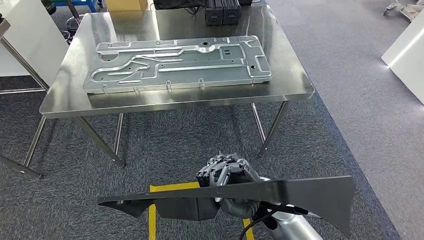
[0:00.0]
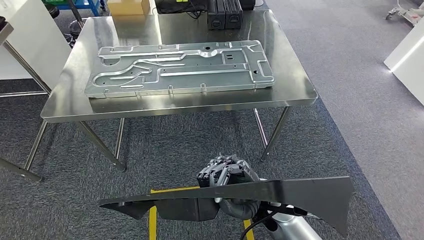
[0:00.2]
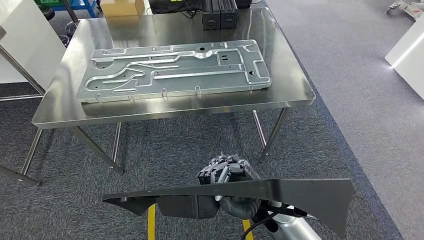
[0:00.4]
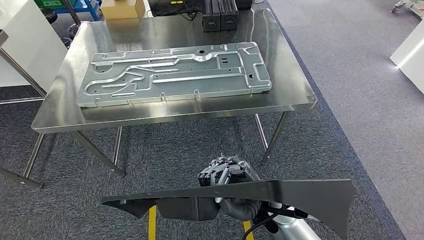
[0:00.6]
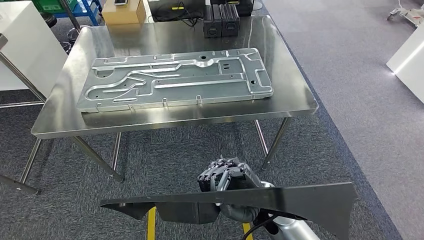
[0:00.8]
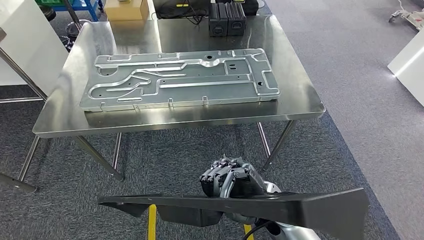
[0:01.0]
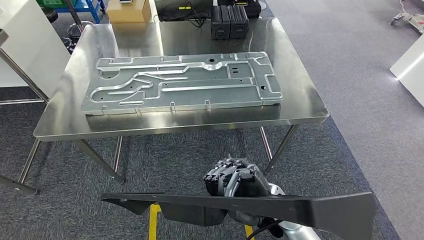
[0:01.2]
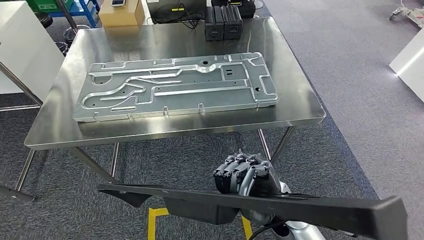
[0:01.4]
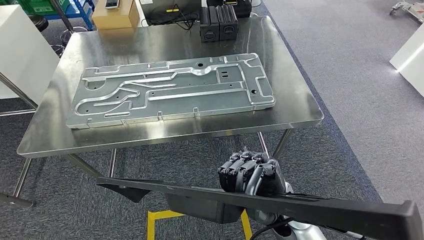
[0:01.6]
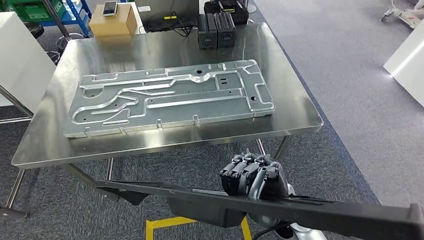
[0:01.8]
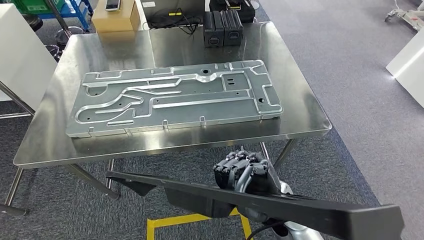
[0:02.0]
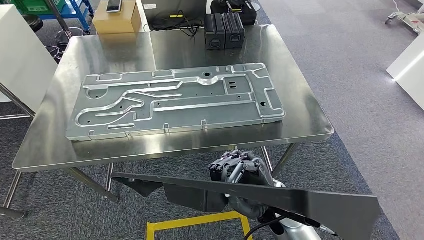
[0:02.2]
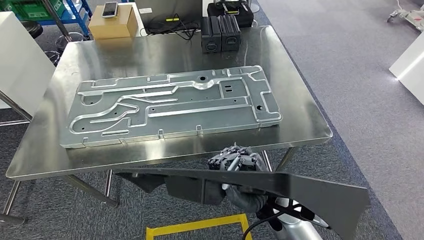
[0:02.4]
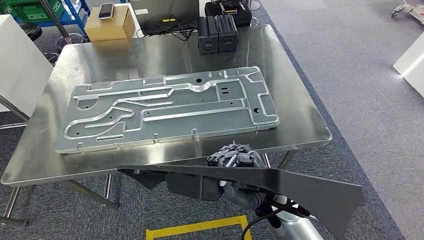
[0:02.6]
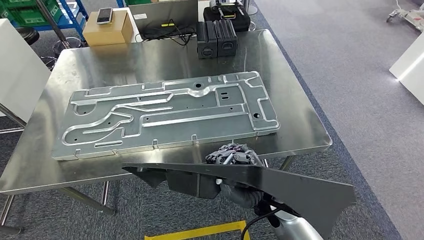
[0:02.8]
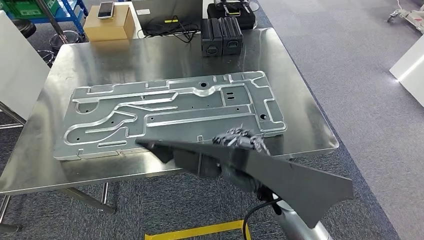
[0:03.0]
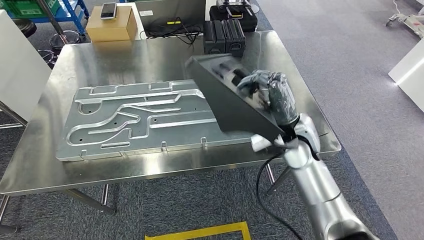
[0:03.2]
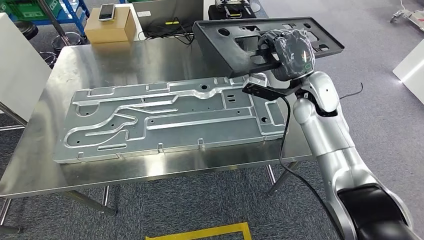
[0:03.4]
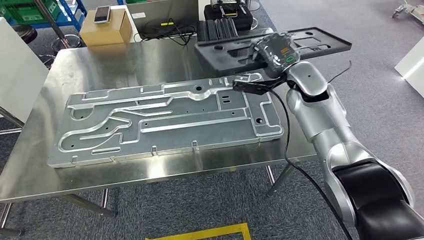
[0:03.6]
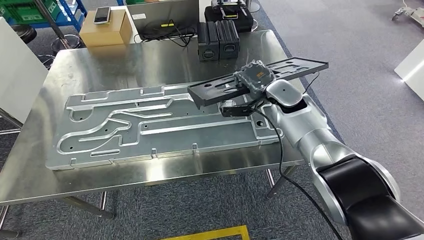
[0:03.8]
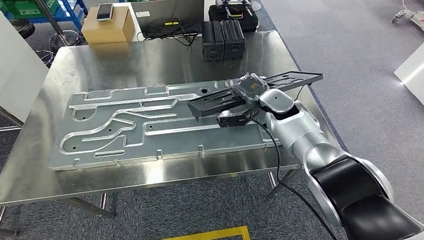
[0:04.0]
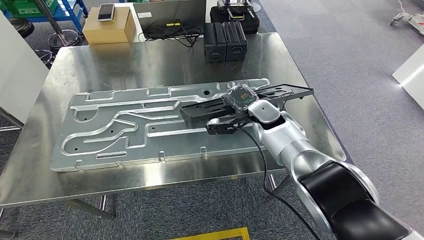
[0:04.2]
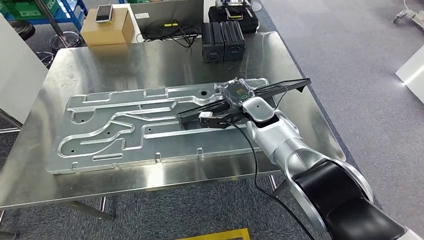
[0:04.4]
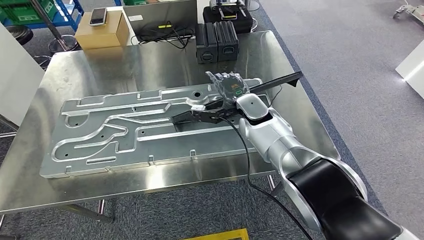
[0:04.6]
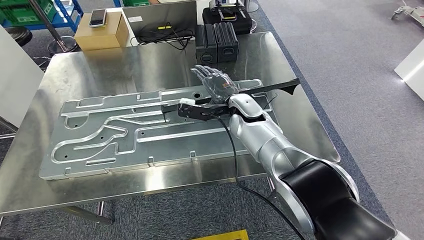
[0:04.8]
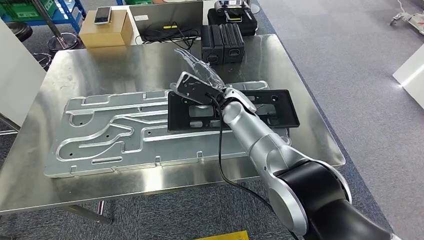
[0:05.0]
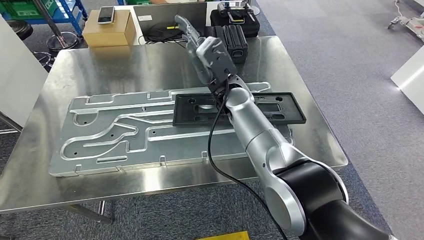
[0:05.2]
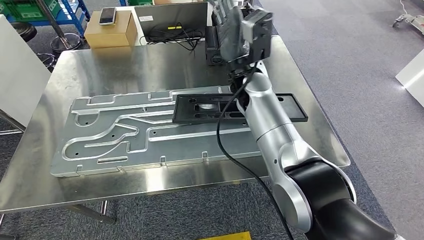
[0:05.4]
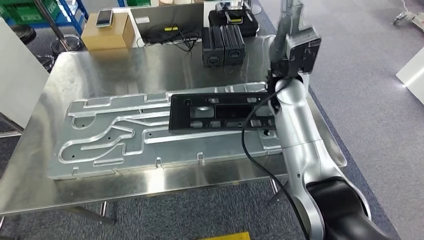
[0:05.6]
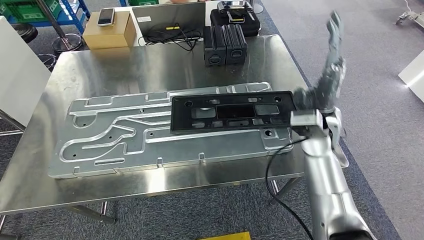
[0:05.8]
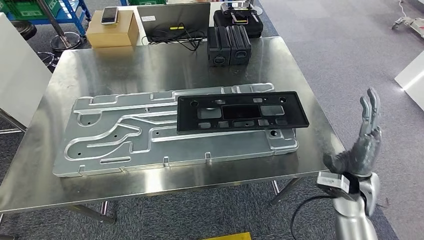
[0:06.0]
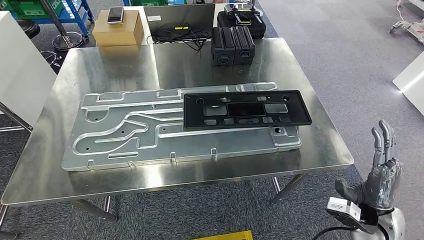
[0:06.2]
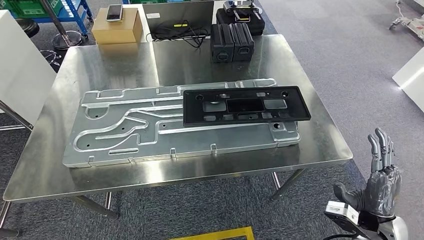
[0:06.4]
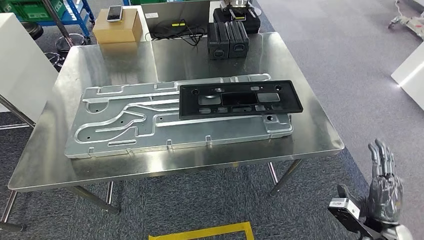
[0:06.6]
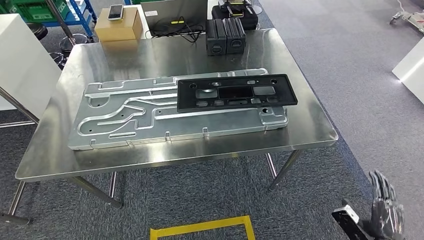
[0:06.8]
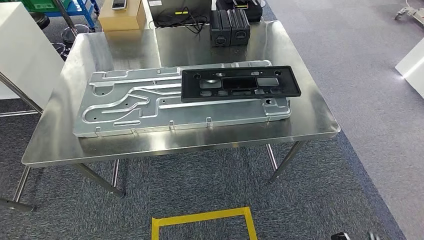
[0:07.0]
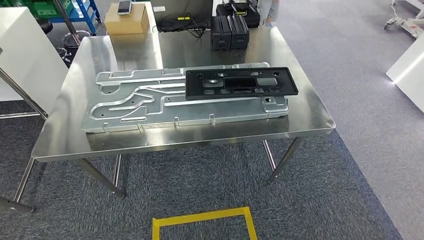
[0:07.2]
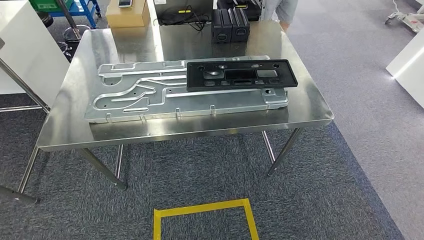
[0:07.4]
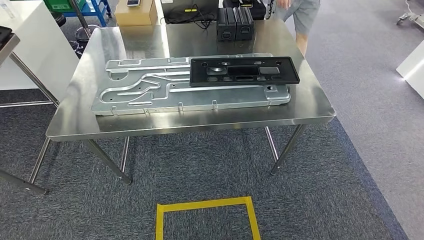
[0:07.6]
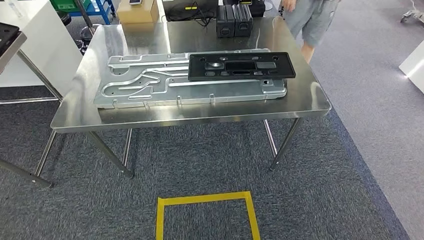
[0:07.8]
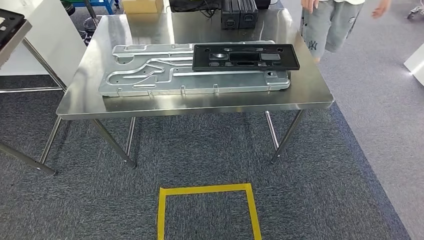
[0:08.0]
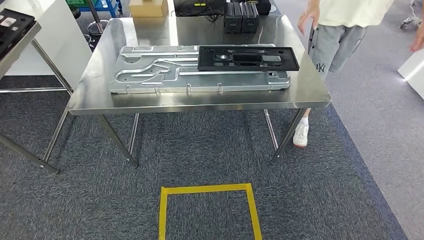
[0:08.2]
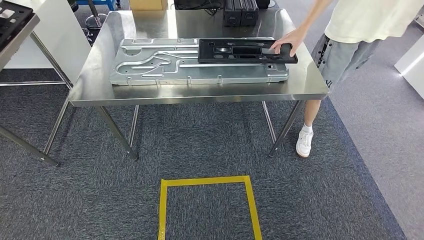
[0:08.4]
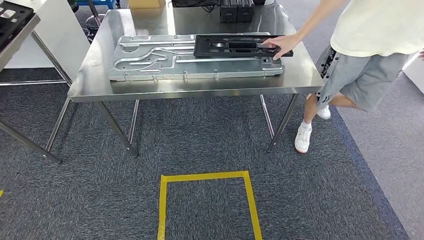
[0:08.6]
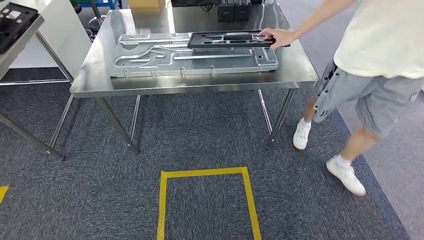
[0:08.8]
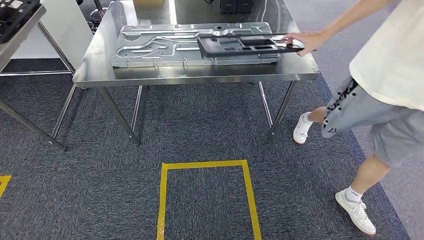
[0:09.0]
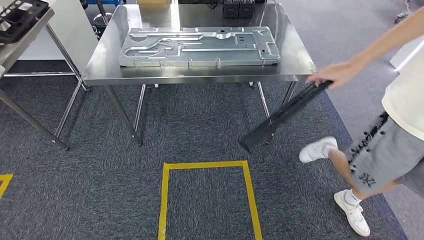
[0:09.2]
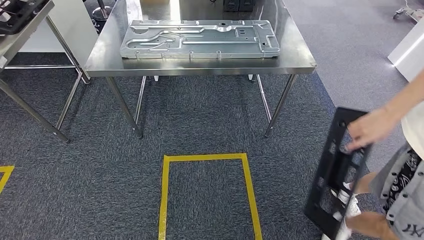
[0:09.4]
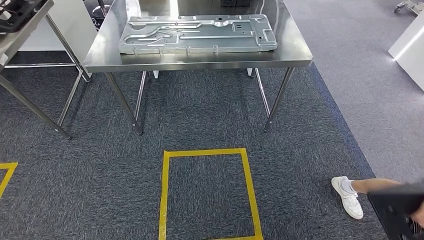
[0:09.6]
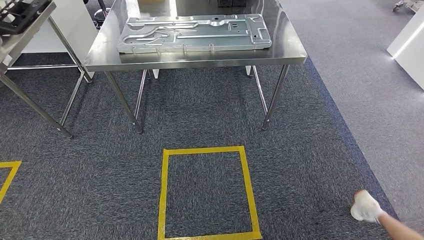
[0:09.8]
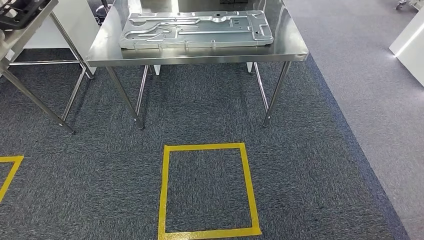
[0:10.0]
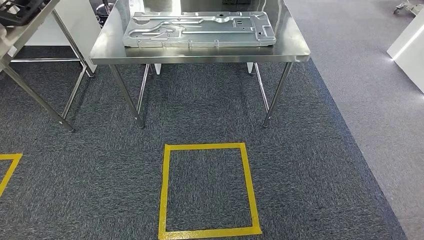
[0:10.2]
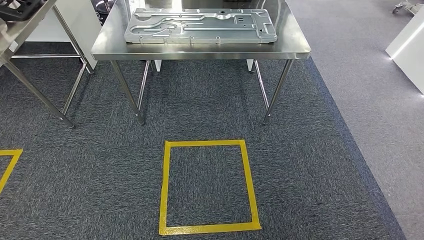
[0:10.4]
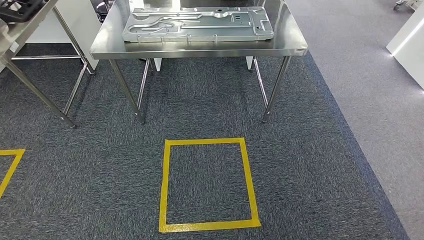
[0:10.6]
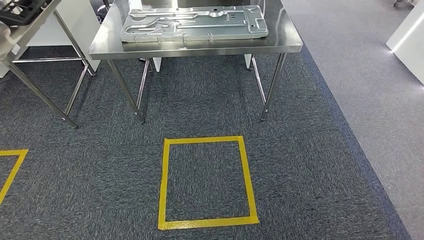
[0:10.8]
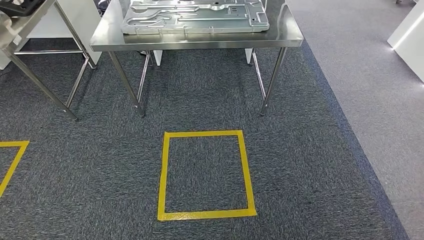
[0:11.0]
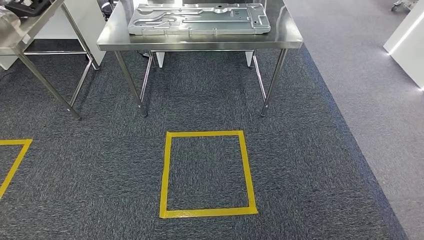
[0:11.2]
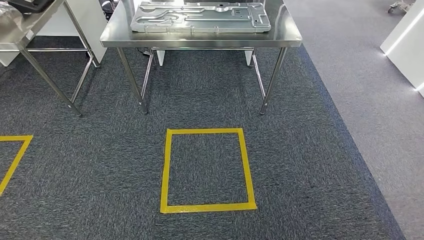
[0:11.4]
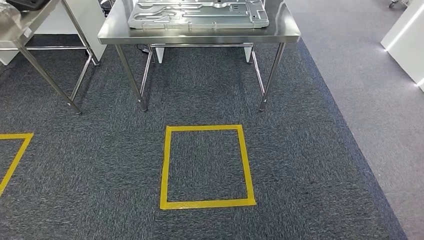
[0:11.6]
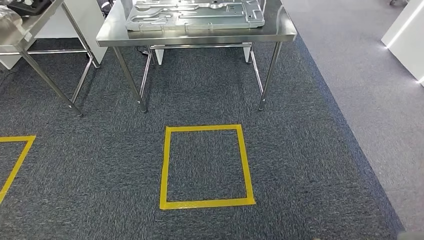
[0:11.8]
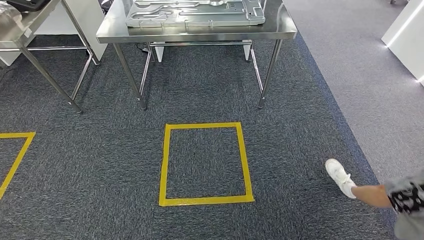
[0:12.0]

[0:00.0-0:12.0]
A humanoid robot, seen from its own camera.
Step, 0:03.6 to 0:07.0: Insert the large material into the corresponding slot on the workbench.

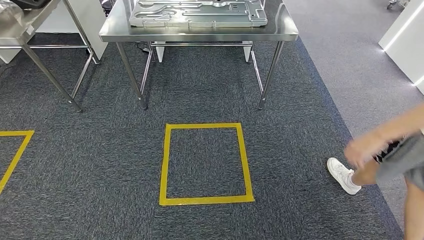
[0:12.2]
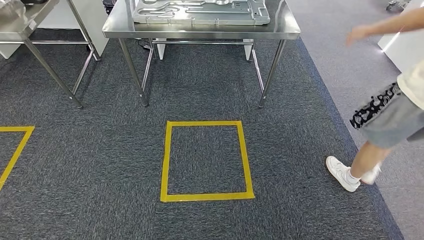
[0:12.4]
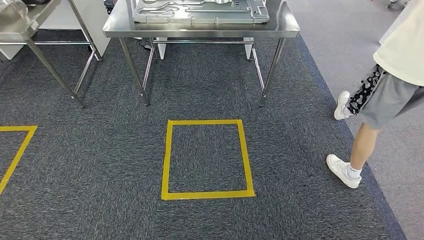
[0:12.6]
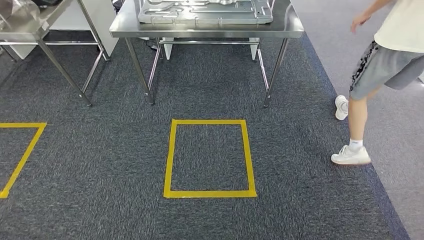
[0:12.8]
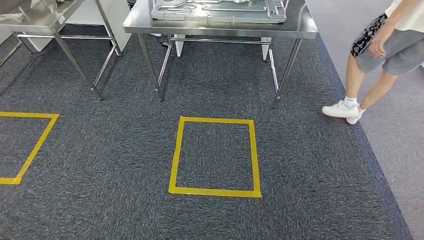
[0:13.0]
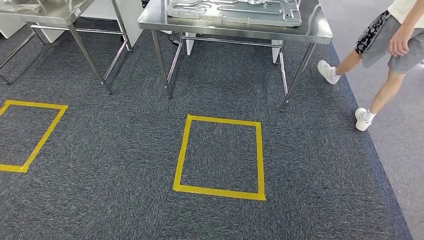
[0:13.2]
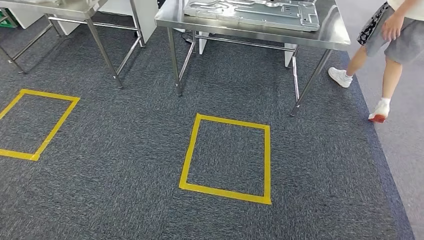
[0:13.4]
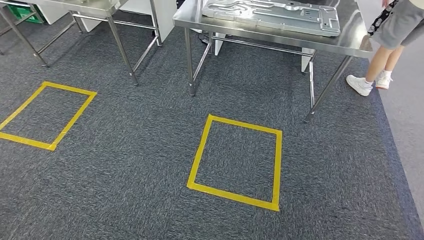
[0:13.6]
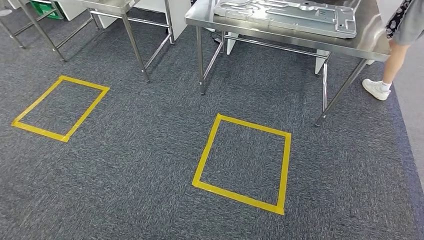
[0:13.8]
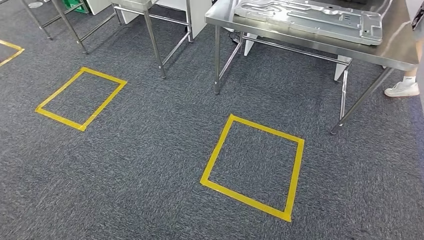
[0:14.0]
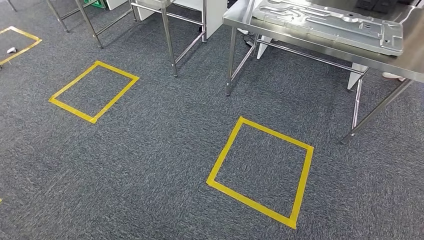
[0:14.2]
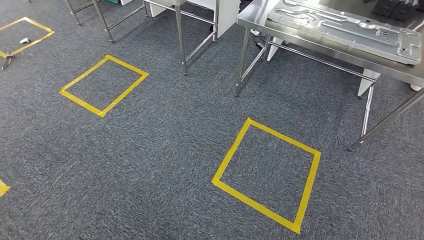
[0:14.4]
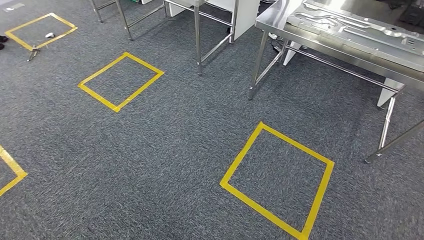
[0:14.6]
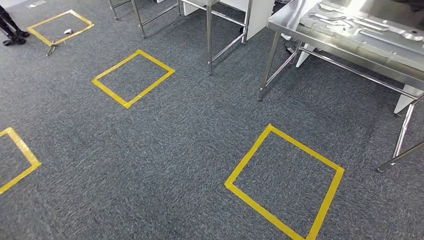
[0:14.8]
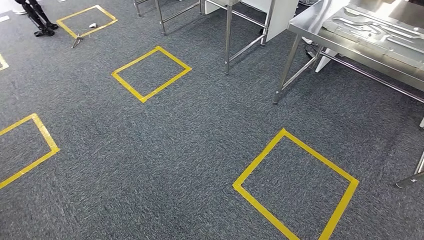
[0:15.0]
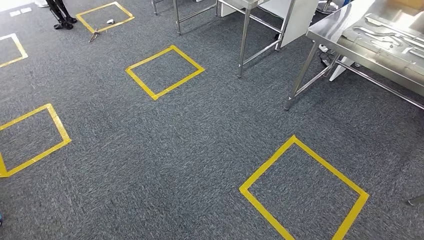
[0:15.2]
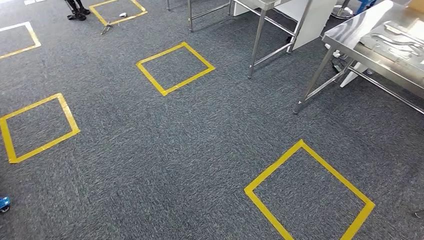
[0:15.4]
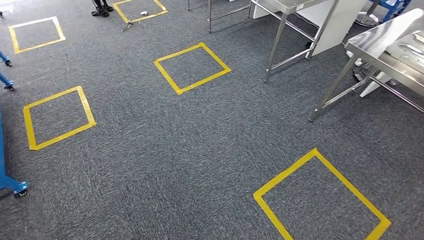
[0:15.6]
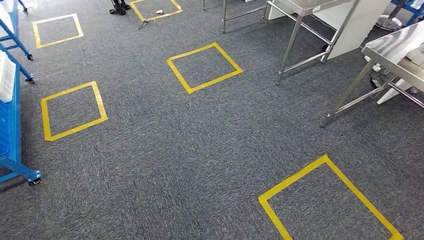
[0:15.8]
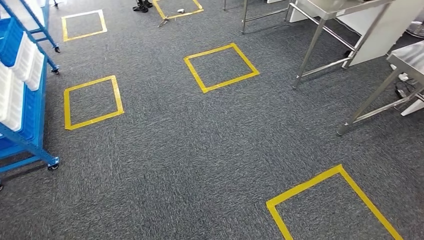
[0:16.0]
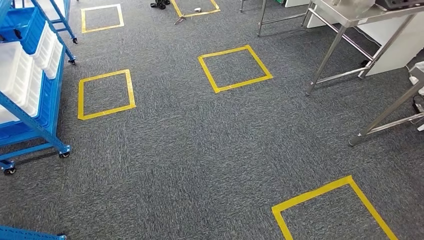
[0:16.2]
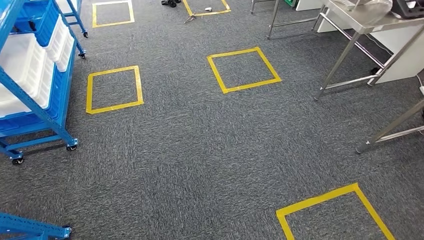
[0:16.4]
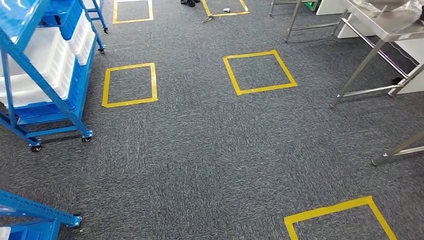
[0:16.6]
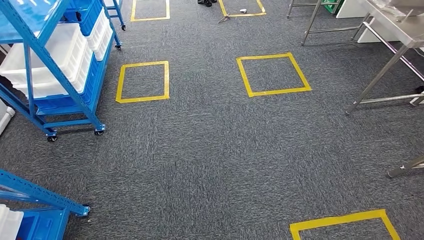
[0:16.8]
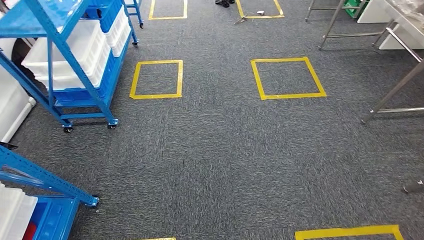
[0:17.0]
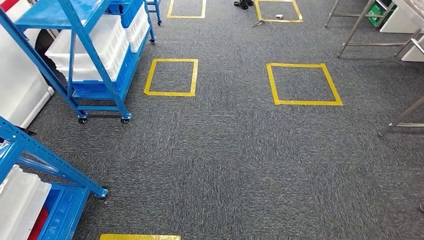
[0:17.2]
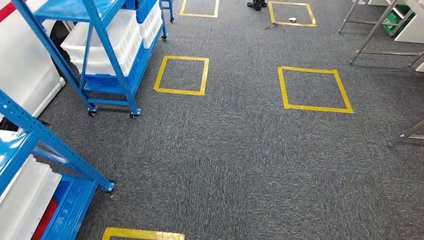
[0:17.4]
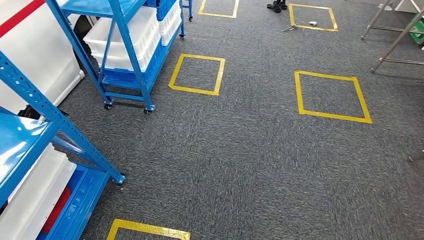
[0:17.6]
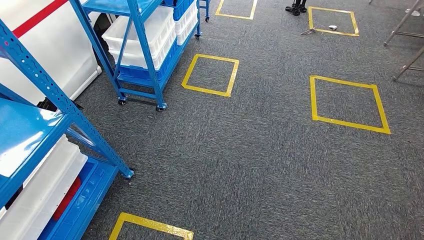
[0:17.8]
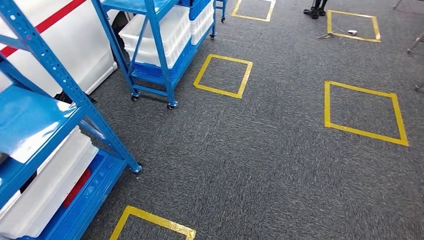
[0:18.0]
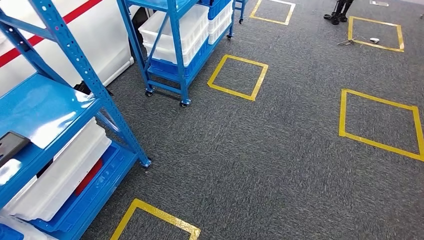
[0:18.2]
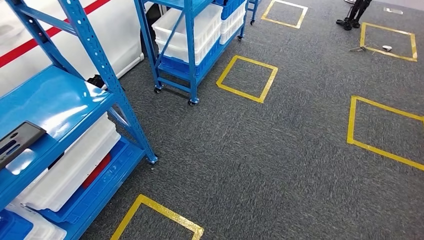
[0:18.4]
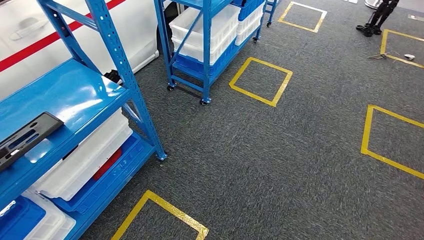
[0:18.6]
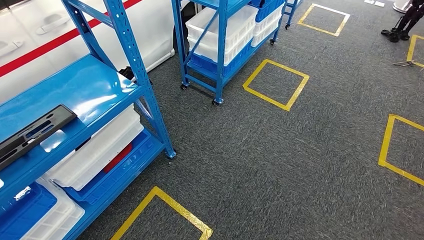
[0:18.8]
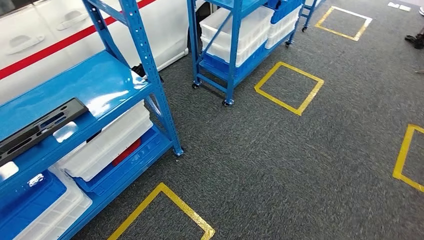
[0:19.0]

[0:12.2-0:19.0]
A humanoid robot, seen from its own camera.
Step, 0:12.2 to 0:18.8: Move to the initial position of the shelf.
